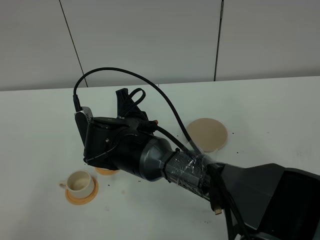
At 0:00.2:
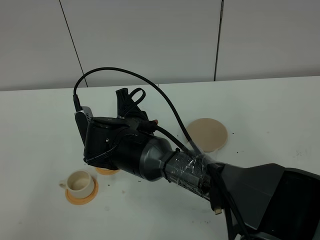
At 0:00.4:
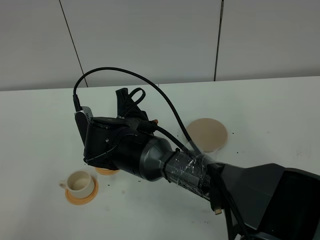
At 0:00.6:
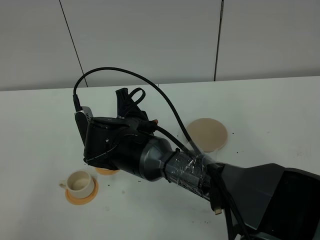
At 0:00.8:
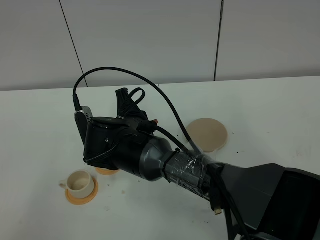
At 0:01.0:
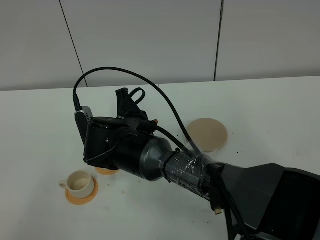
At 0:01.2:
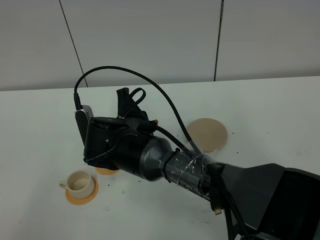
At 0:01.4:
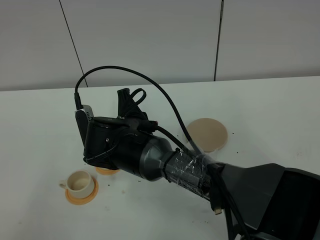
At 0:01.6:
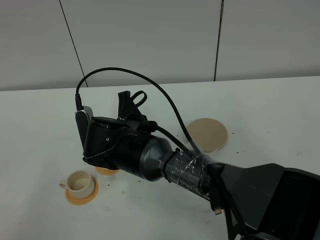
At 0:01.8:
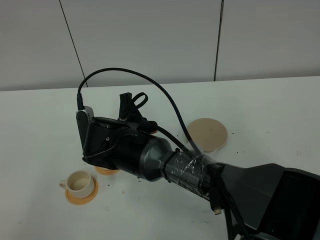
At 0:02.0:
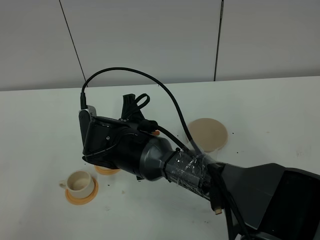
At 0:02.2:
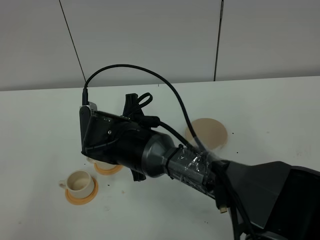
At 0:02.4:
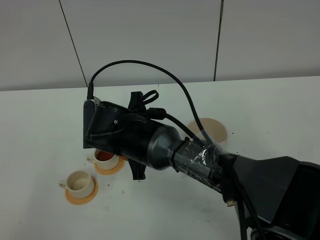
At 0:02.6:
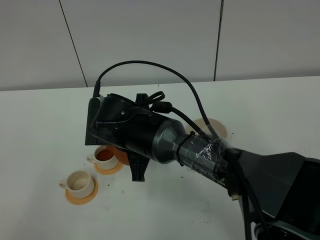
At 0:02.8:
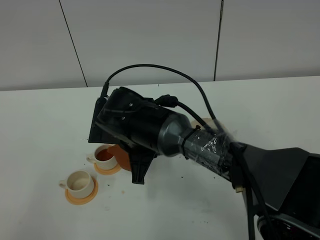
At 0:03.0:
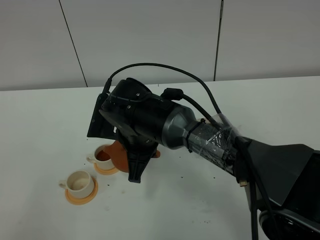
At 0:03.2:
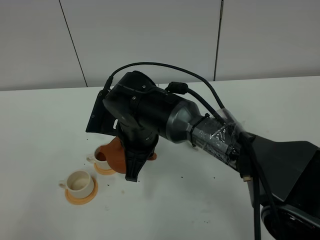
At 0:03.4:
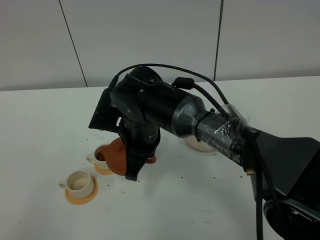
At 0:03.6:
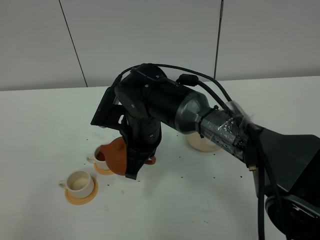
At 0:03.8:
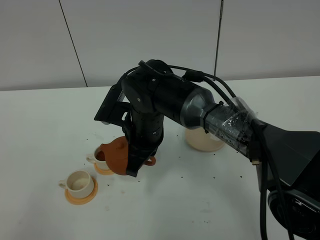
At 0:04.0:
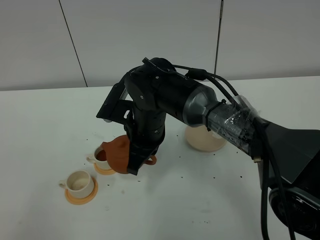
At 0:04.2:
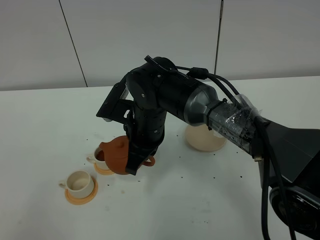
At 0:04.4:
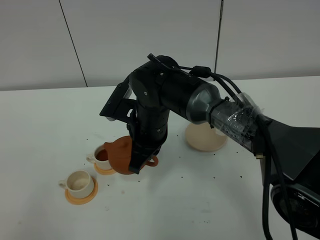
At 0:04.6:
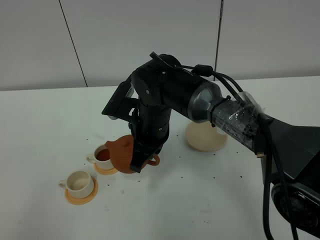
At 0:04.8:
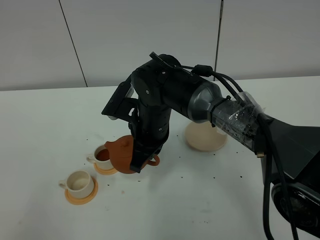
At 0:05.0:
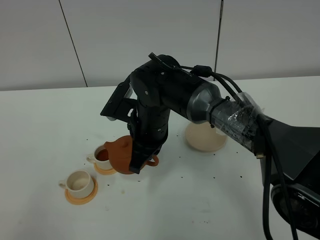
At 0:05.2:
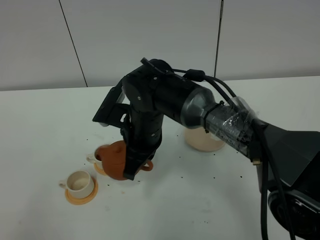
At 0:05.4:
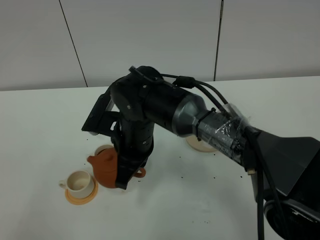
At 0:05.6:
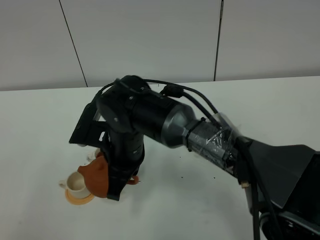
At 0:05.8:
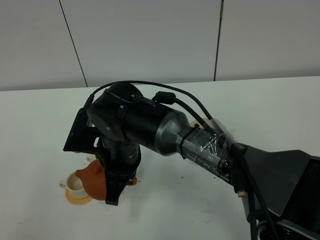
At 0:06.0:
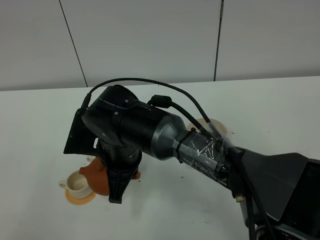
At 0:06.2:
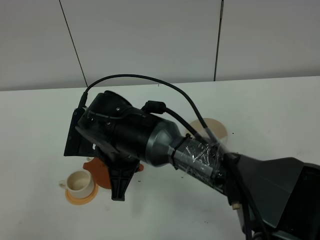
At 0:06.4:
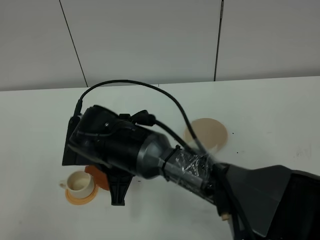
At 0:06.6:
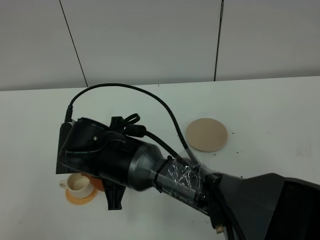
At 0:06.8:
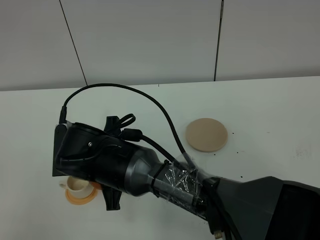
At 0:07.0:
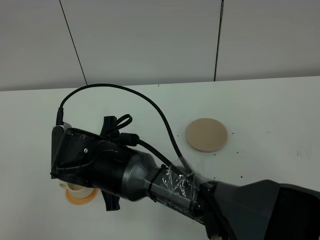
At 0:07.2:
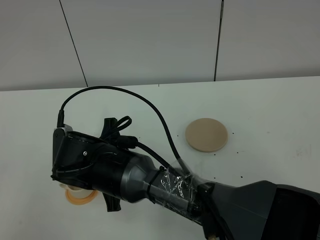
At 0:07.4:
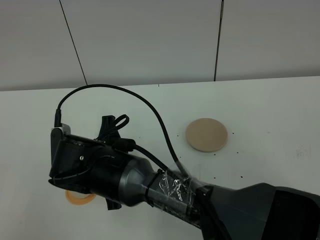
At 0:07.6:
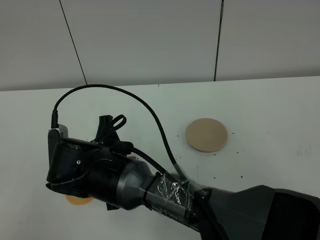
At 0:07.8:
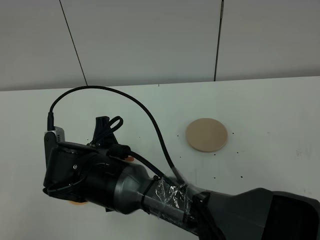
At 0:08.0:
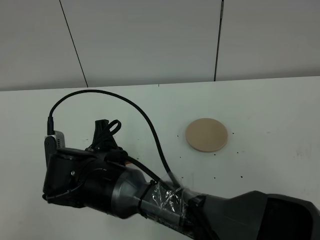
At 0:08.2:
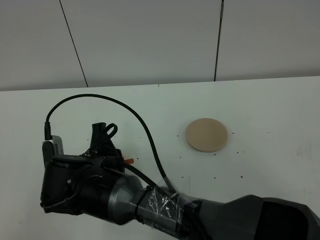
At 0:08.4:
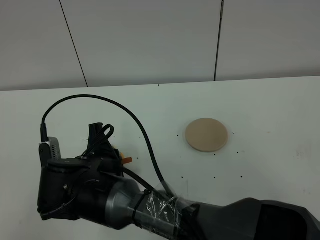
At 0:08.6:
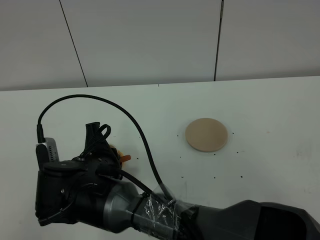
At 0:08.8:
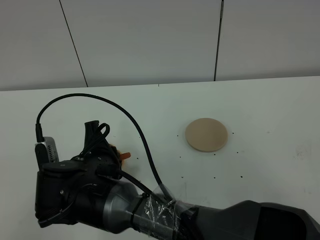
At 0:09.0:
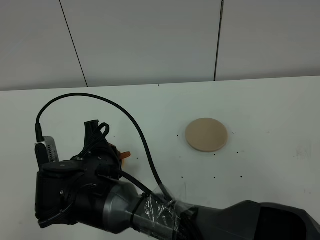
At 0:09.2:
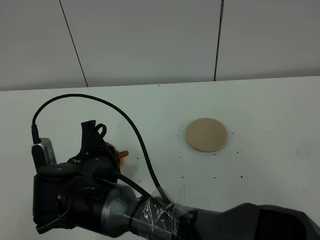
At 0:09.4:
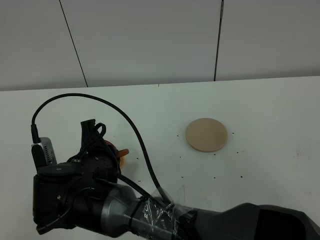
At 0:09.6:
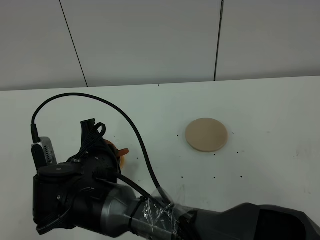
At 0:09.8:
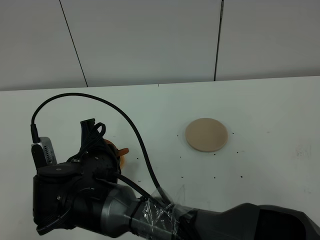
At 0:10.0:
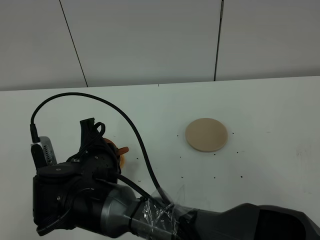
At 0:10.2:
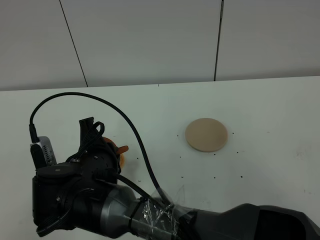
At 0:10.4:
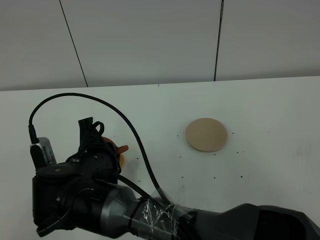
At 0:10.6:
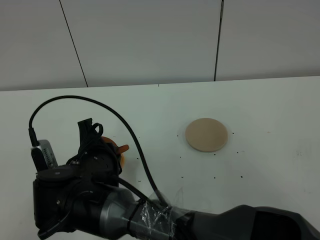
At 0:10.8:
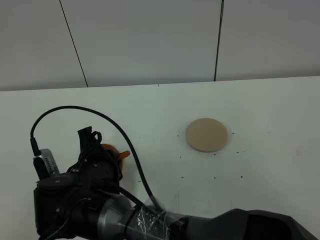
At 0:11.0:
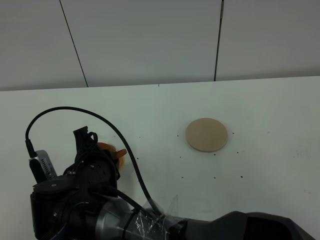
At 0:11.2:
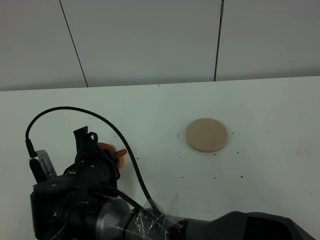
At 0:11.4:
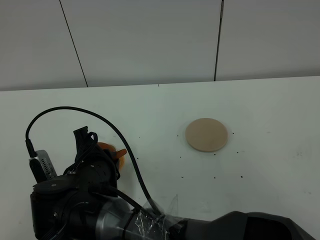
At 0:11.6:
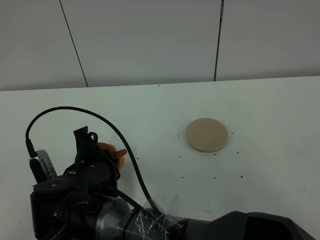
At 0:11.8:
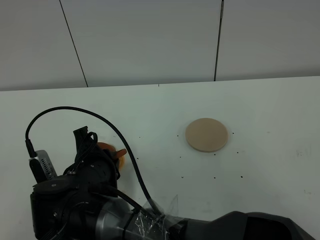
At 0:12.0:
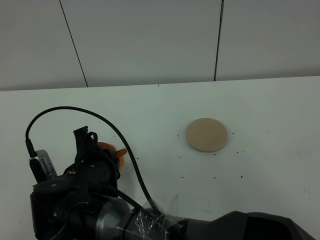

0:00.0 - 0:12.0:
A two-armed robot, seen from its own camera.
Task of the whole recording: grasp the brown teapot and pour the tea into the two white teacups one by one, put the brown teapot back in its original place.
0:00.0 - 0:01.6: Both grippers stay about where they are.
0:03.0 - 0:04.4: The grippers move only a little.
0:04.4 - 0:06.0: The right gripper is displaced backward and to the left by about 10 cm.
0:07.6 - 0:10.4: The grippers stay close to where they were, moving slightly.
0:10.4 - 0:12.0: The grippers make only small movements.

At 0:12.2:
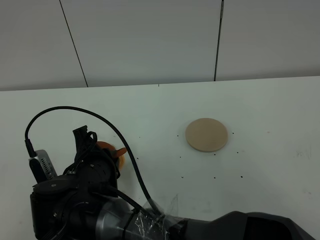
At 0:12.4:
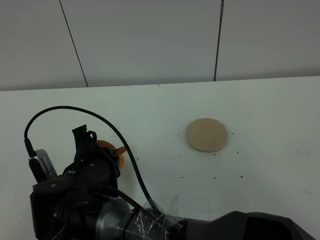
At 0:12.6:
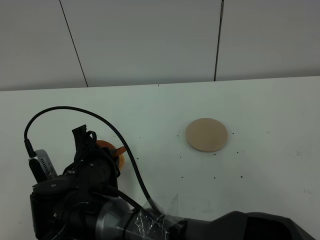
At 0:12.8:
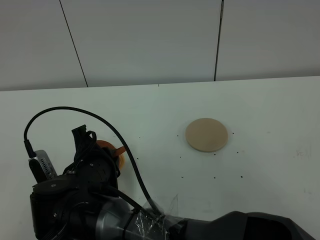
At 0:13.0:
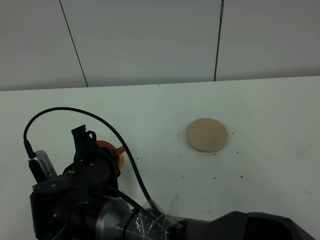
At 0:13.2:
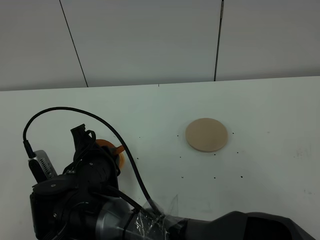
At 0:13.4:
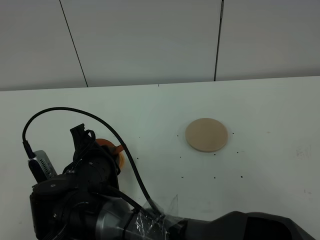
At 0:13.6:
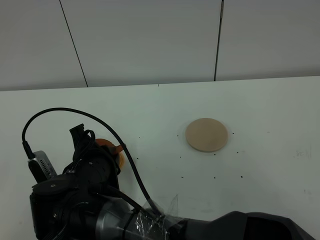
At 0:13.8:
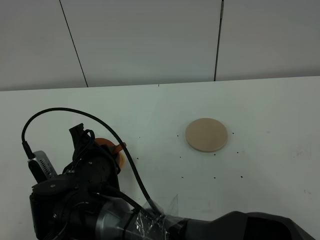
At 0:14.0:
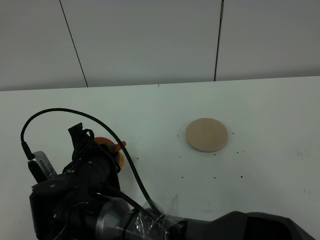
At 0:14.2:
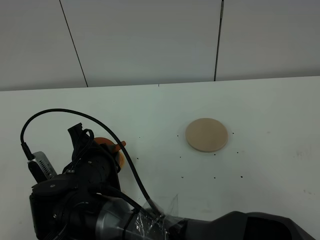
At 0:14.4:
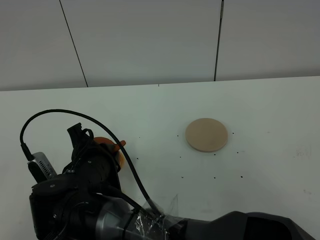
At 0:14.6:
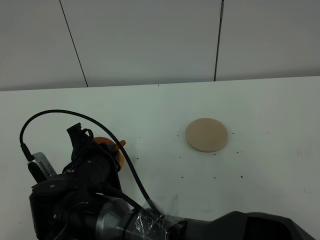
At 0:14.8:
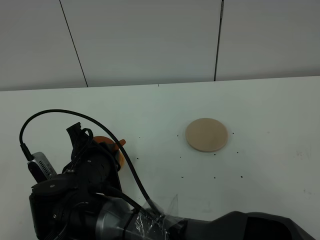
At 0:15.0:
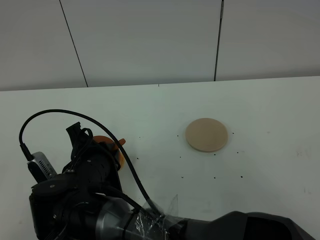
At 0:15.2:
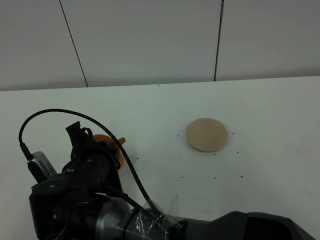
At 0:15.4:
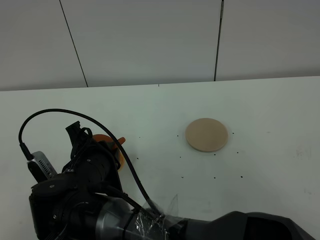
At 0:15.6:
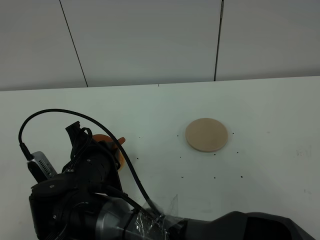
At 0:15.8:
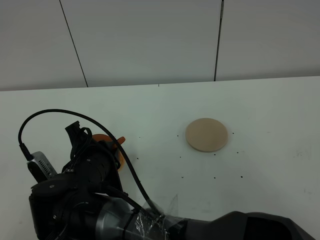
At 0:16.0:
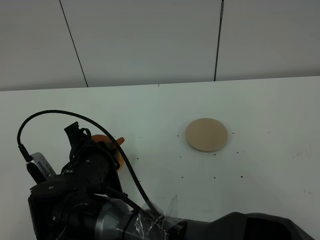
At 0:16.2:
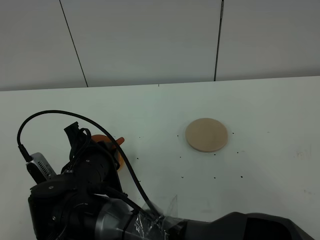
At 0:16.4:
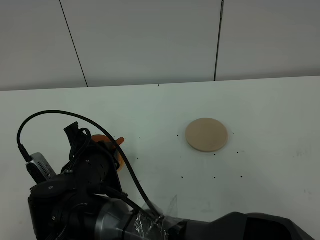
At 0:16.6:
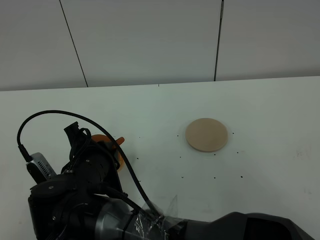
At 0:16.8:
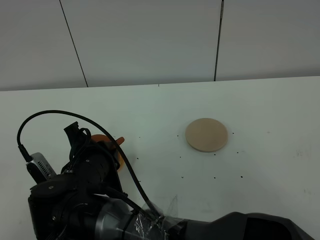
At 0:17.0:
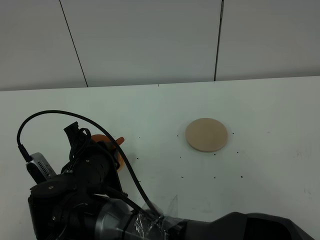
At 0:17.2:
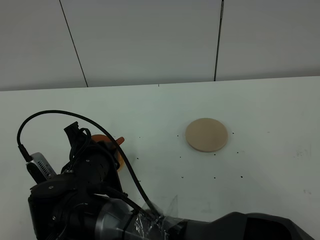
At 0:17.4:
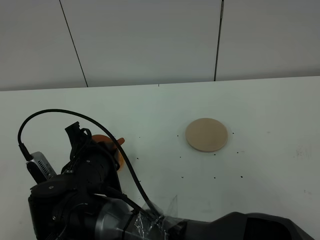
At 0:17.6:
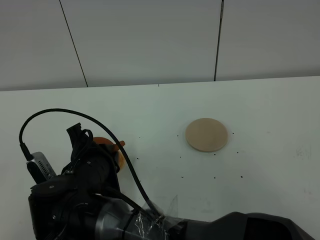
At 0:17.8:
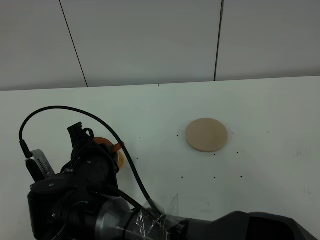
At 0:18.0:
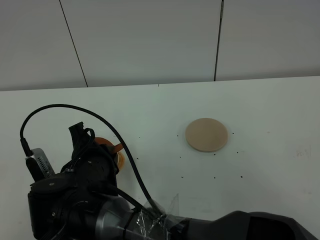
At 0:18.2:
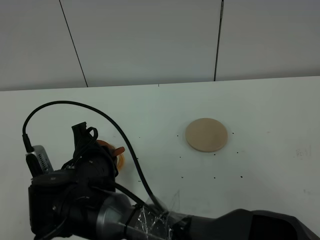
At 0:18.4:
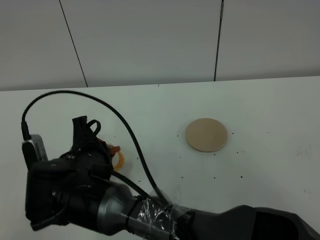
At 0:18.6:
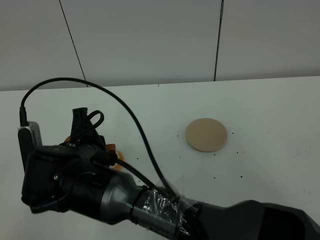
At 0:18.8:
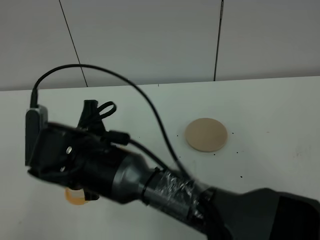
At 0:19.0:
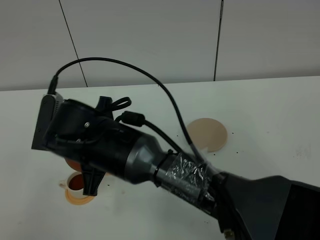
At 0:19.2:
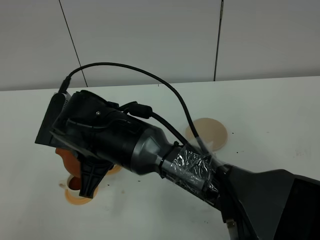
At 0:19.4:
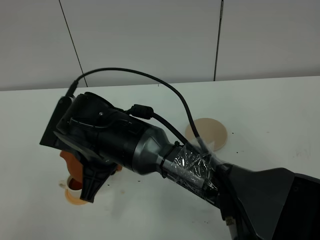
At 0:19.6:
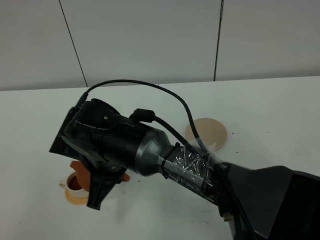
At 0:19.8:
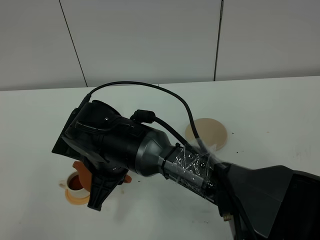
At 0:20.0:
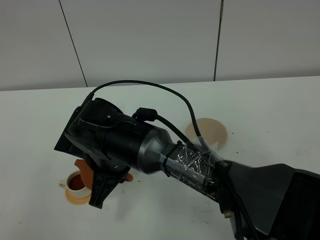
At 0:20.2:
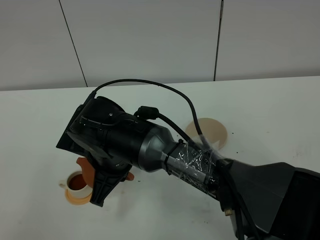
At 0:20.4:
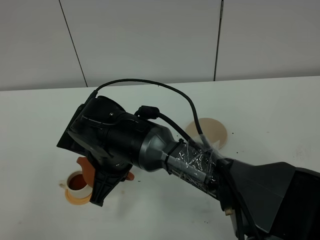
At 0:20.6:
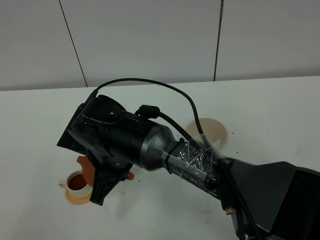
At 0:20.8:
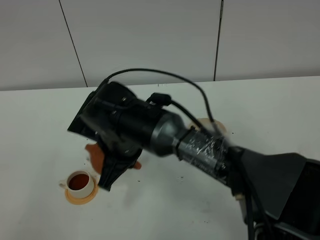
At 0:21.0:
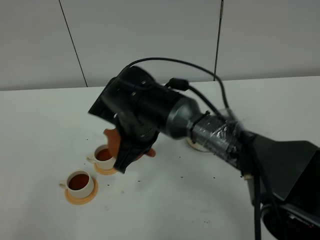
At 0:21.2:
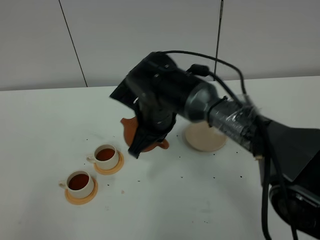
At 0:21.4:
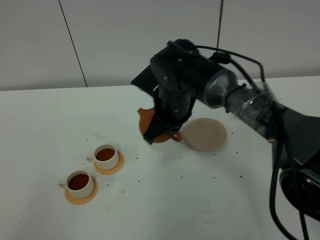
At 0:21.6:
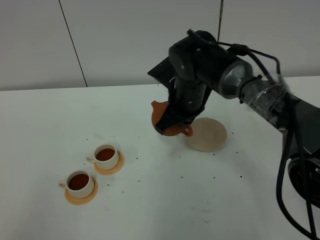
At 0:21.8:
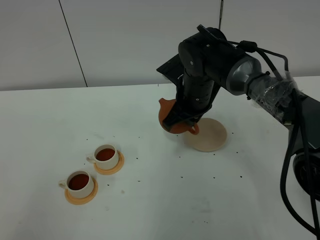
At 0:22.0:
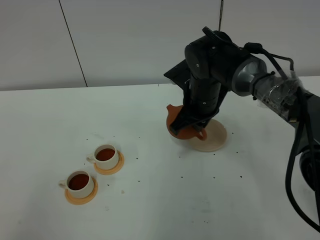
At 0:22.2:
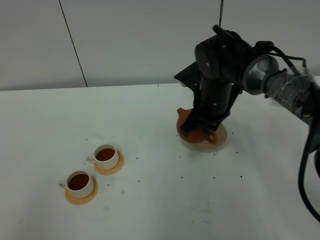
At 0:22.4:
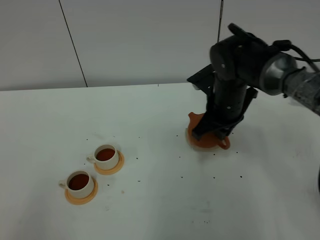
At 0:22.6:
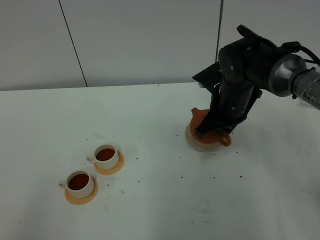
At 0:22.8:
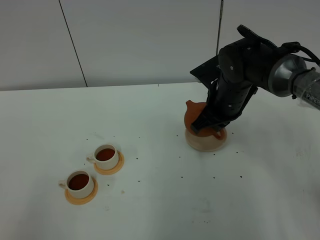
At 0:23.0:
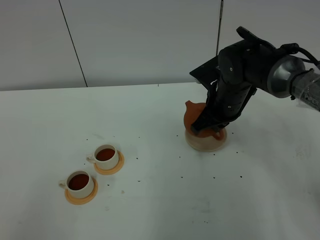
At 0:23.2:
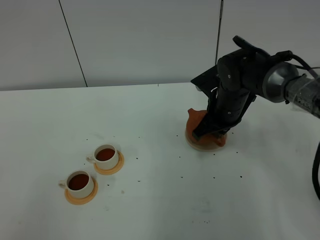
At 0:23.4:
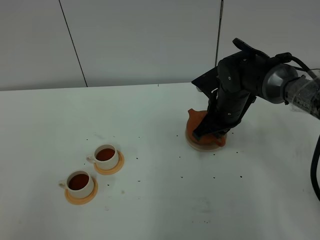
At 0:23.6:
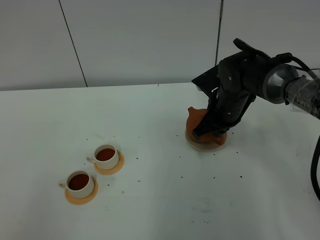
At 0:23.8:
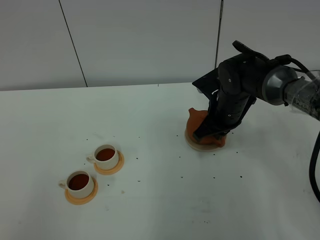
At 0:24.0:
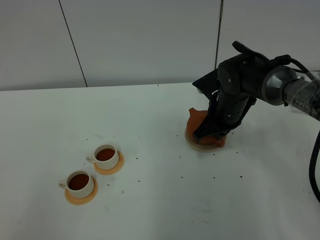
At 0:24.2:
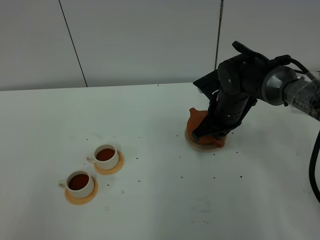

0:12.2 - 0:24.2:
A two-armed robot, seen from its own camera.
Task of the whole recording: grasp the brown teapot and pour the tea into the two white teacups one by one, put the brown teapot back in its original place.
Step, 0:12.2 - 0:19.0: Pour tea into the teacup with the right gripper.
0:12.2 - 0:13.8: Both grippers stay put.
0:13.8 - 0:15.2: Neither gripper changes place.
0:15.2 - 0:16.6: Neither gripper changes place.
0:16.6 - 0:18.2: There are only small adjustments of the grippers.
0:18.2 - 0:19.8: The right gripper changes place by some 5 cm.
0:19.8 - 0:21.2: The right gripper travels forward and to the right by some 10 cm.
0:21.2 - 0:22.6: The right gripper is displaced to the right by some 15 cm.
0:22.6 - 0:24.2: There are only small adjustments of the grippers.
